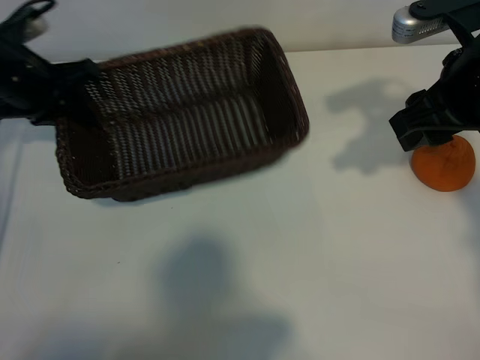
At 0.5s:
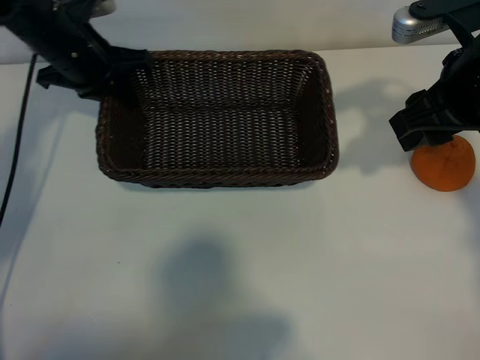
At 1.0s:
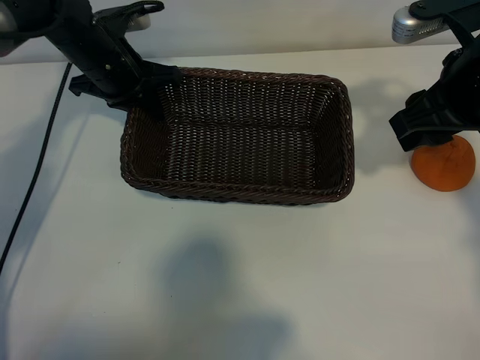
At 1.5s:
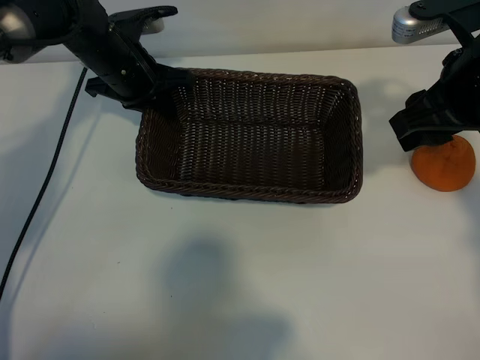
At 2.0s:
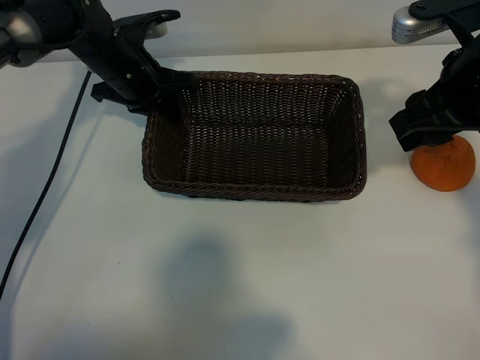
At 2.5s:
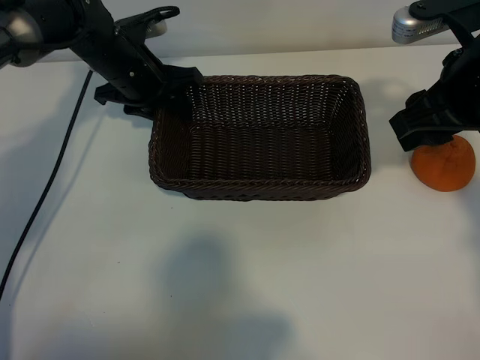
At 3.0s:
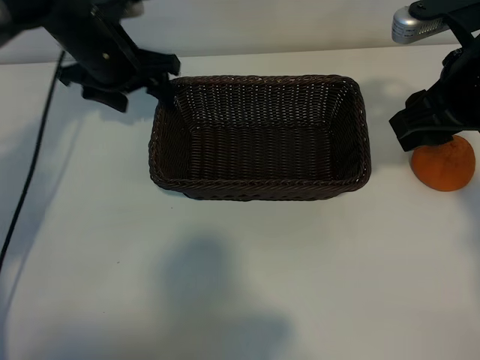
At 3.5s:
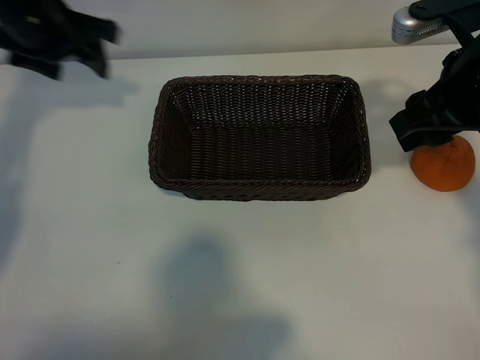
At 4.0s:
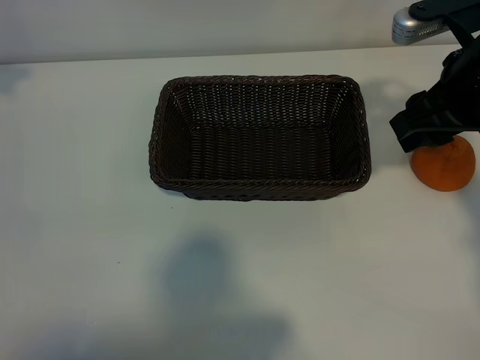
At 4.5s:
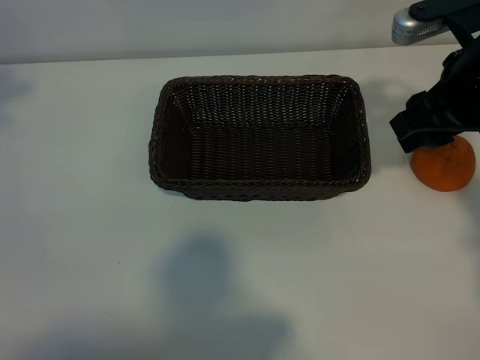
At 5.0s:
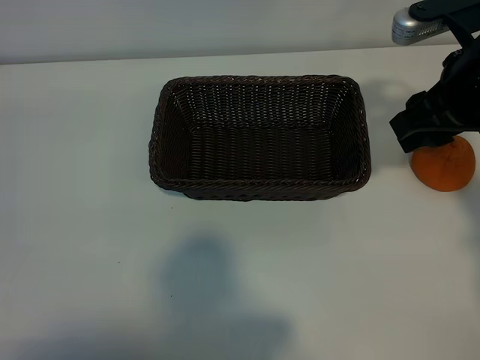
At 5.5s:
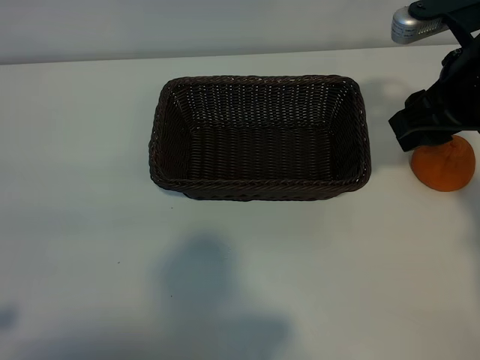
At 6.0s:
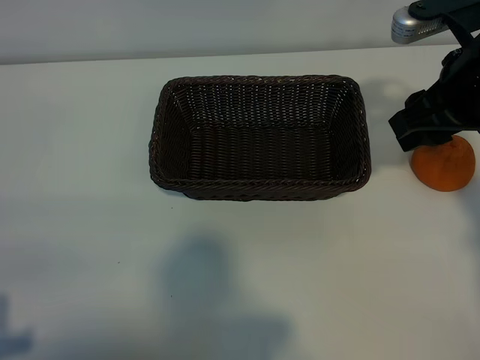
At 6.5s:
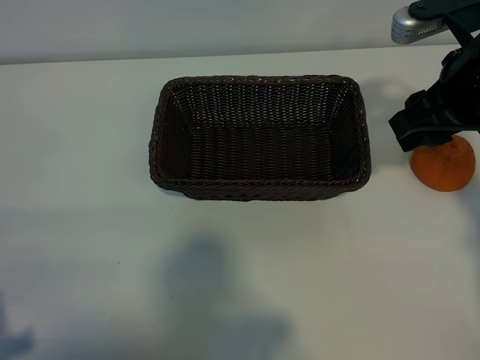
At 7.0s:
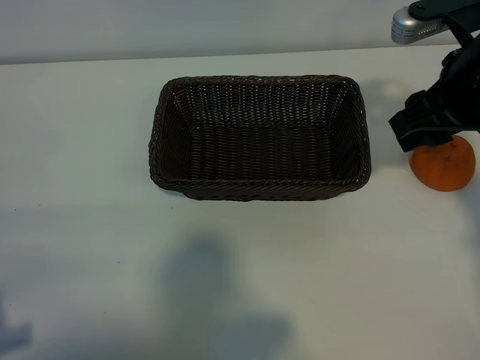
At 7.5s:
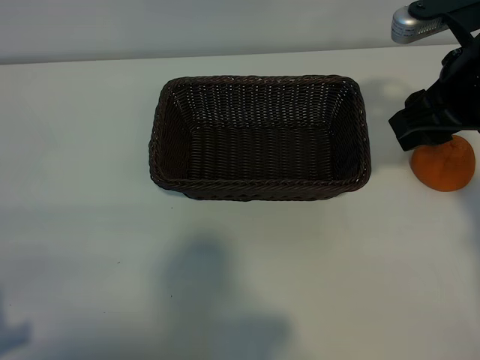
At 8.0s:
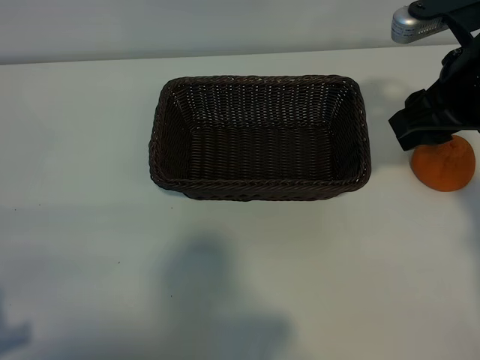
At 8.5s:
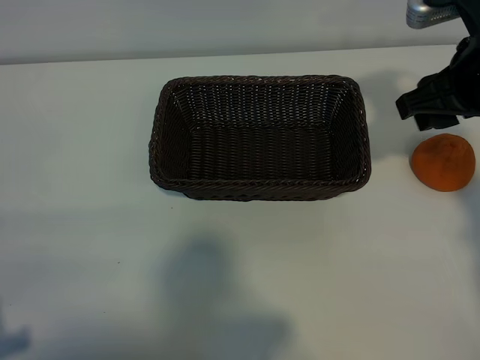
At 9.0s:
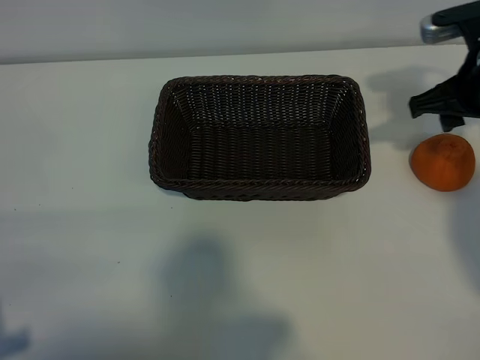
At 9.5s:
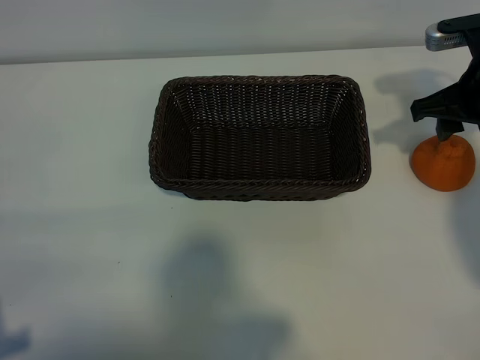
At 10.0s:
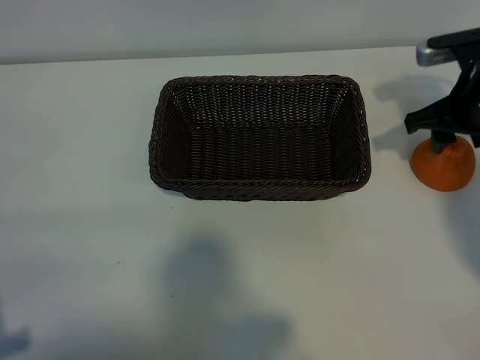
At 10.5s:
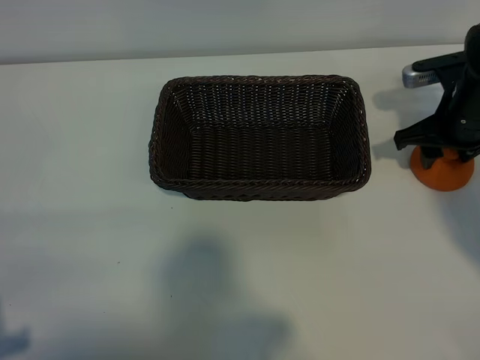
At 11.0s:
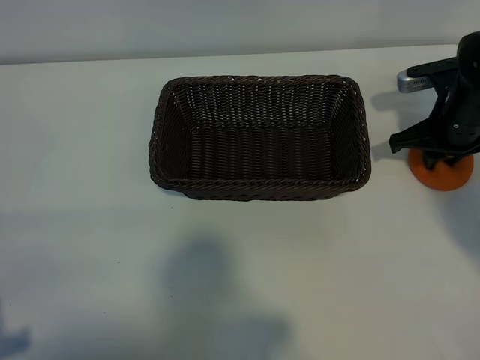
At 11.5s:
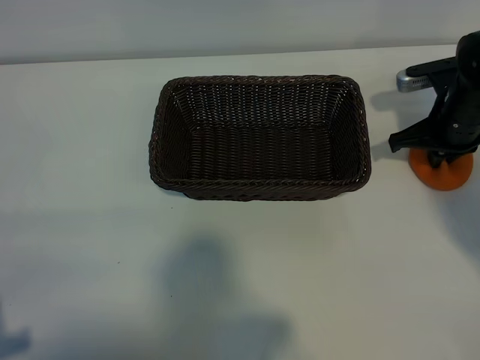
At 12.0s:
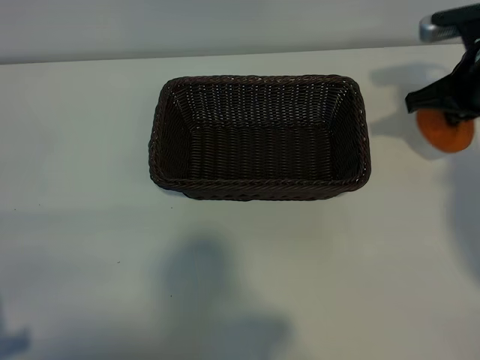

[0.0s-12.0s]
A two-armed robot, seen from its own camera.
Task of the whole recording: pick up the orange and put it into the basket.
Step, 0.0s to 2.0s: Place the basket in the center of view with left gripper.
Step, 3.0s to 11.0s: Grasp the orange with right gripper.

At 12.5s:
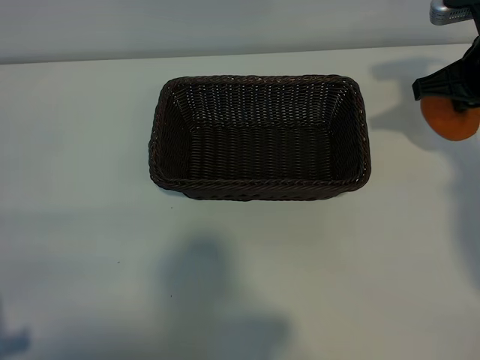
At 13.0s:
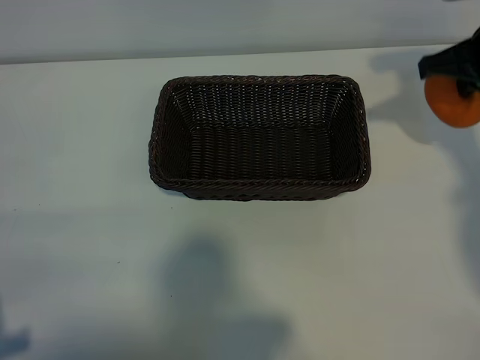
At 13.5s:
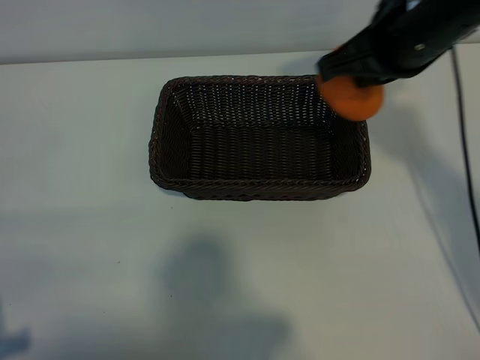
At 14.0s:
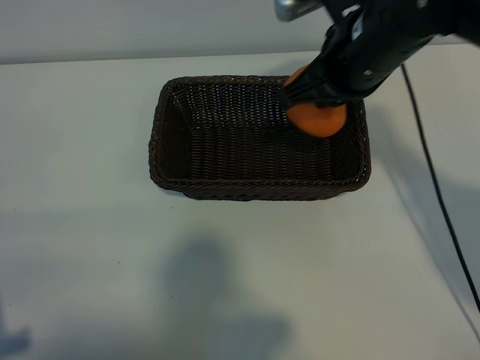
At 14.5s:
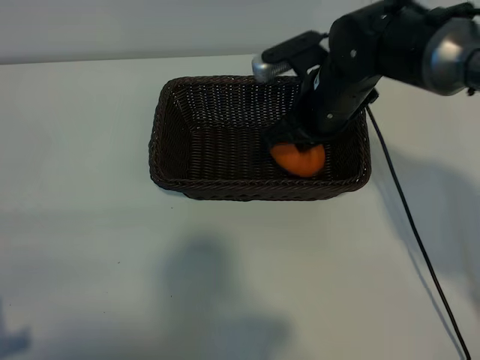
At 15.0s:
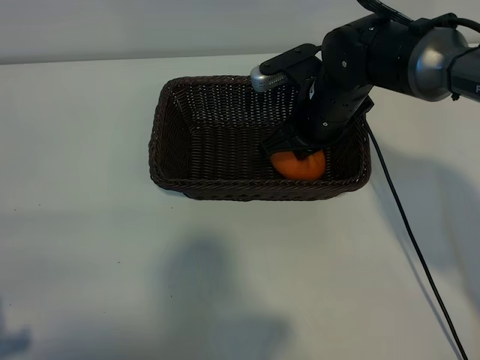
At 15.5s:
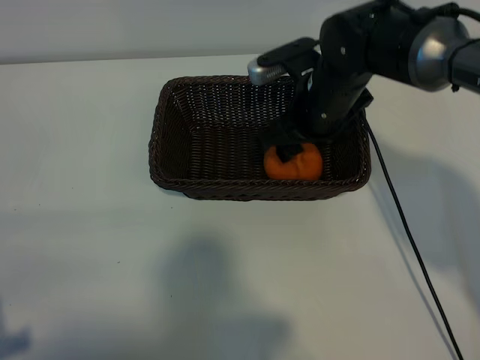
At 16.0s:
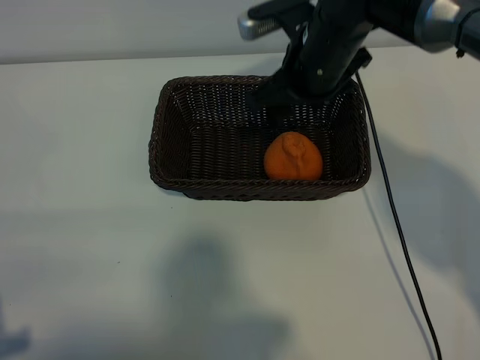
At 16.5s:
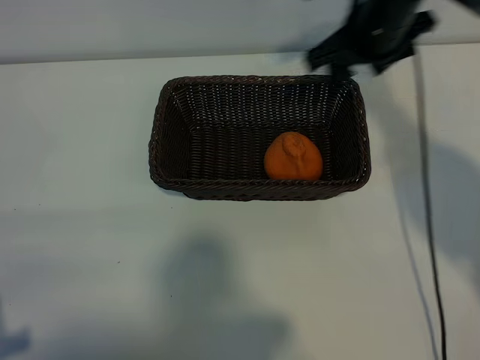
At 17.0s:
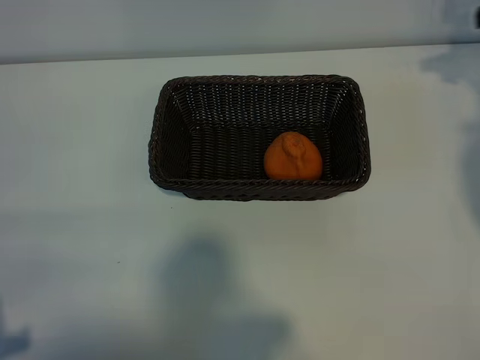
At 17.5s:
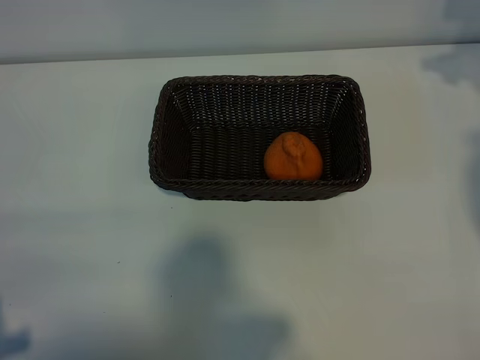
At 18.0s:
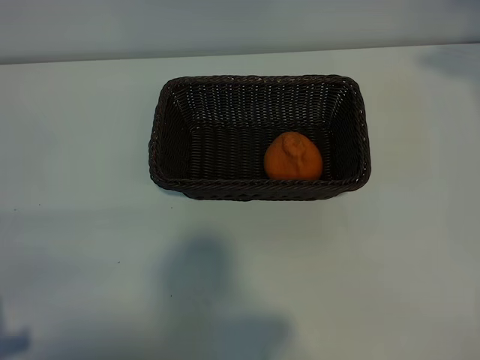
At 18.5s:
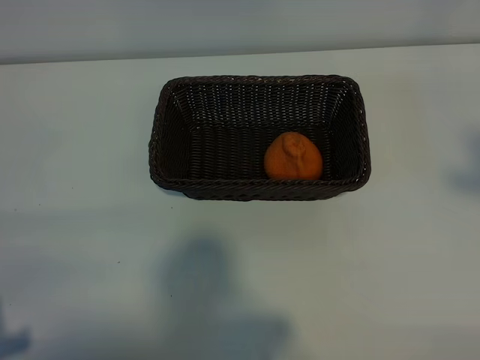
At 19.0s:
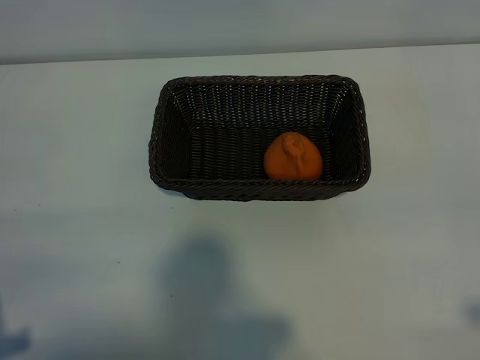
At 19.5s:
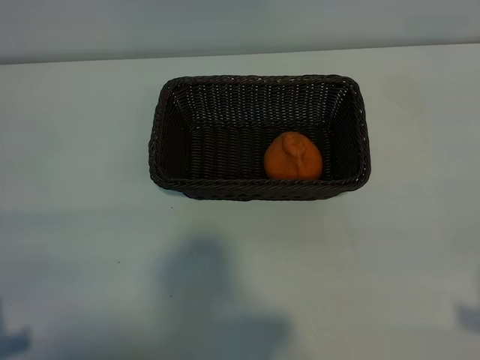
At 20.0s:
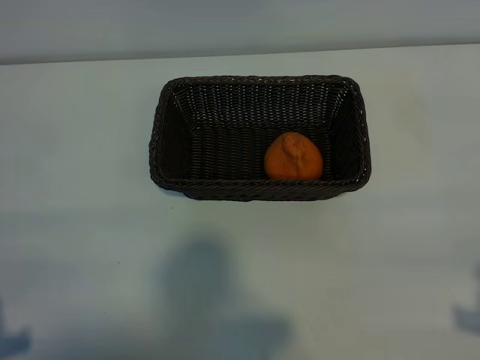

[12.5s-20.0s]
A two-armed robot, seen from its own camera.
Task of the whole recording: pick up the orange and put it into the basket.
Step, 12.5s to 15.0s: Place the orange in the basket with right gripper.
